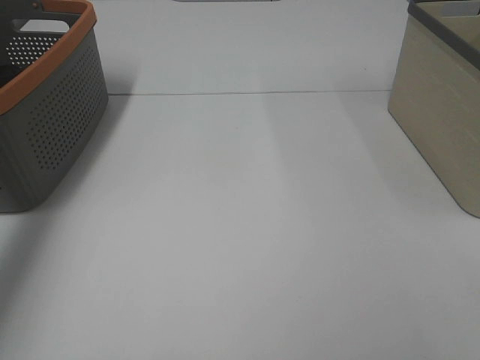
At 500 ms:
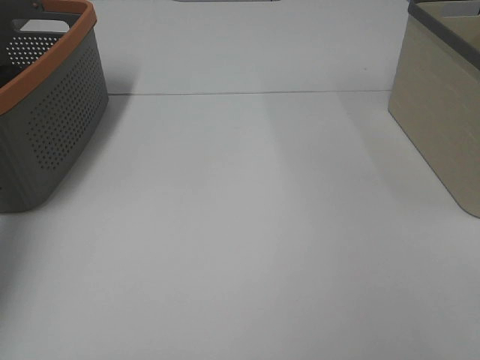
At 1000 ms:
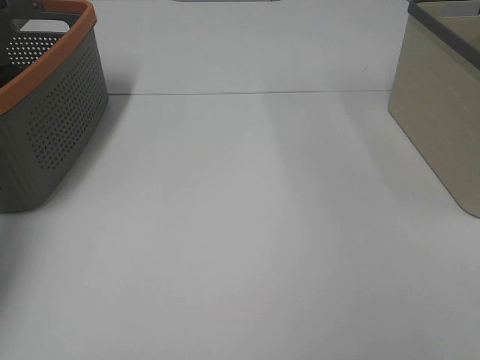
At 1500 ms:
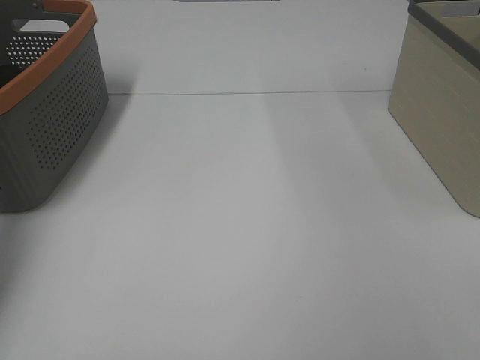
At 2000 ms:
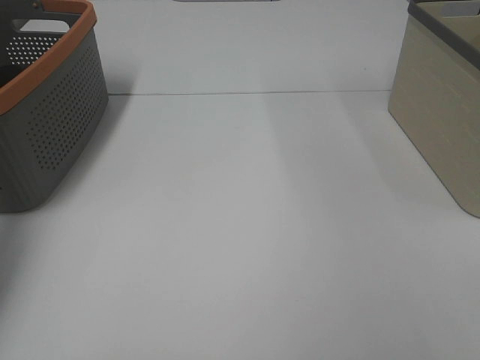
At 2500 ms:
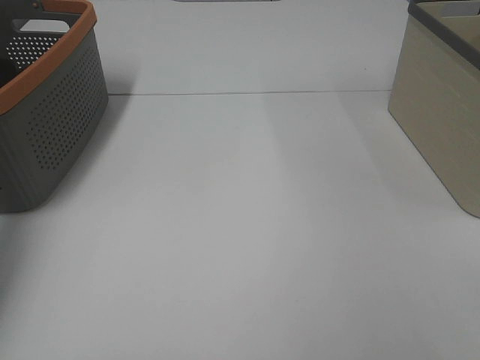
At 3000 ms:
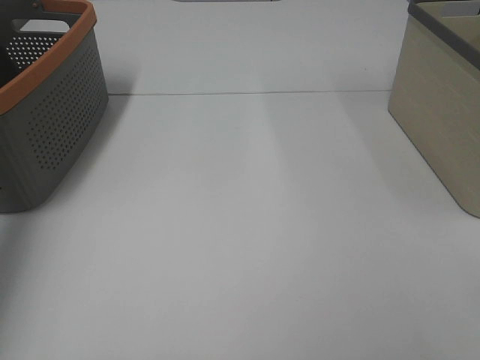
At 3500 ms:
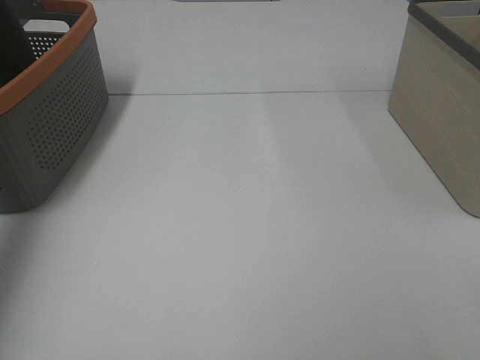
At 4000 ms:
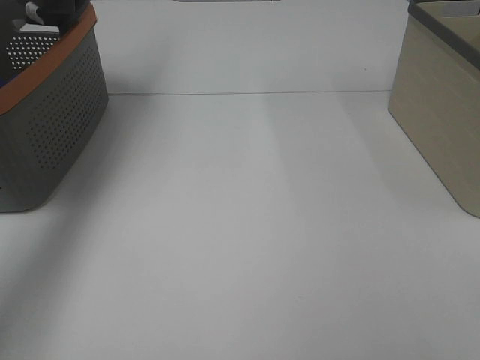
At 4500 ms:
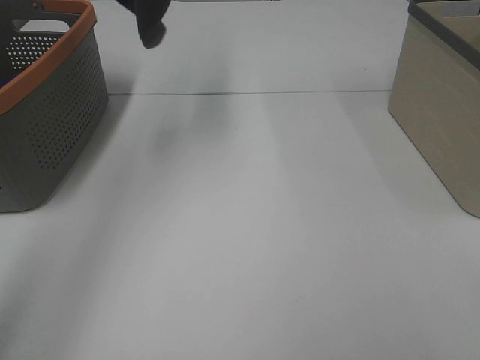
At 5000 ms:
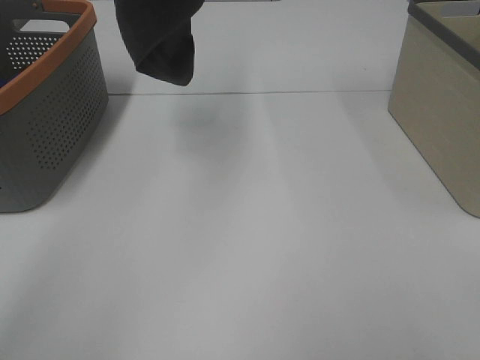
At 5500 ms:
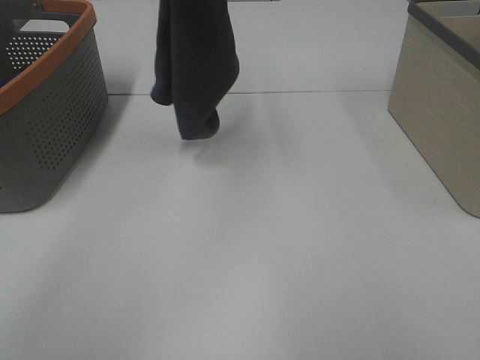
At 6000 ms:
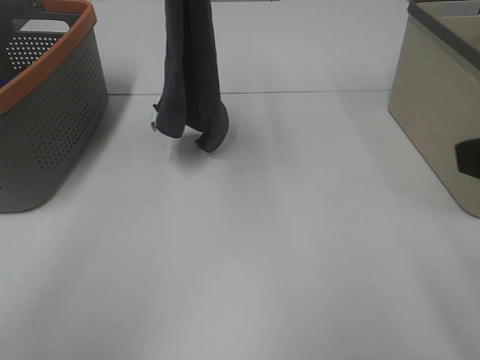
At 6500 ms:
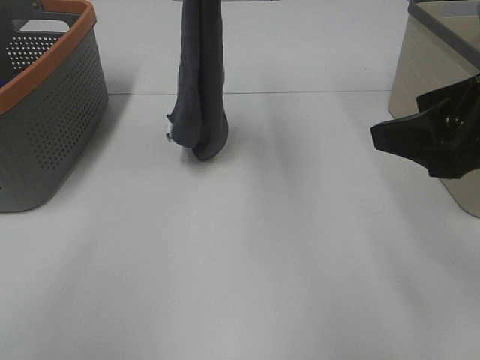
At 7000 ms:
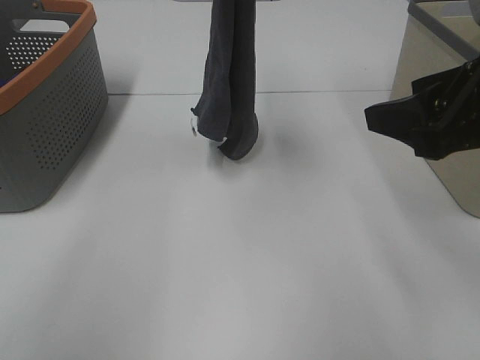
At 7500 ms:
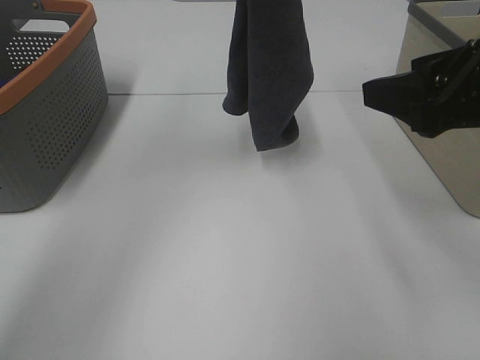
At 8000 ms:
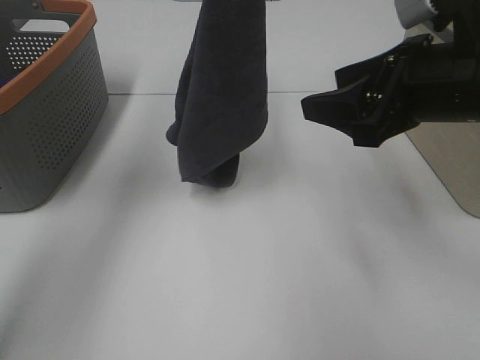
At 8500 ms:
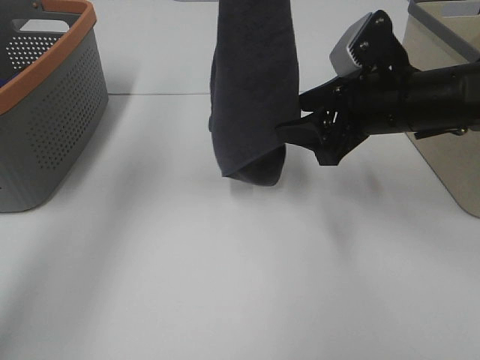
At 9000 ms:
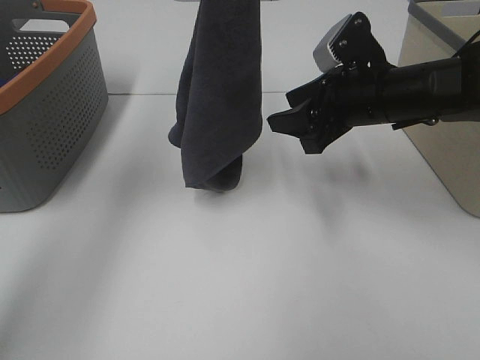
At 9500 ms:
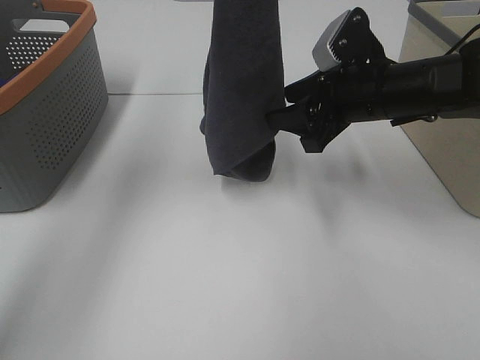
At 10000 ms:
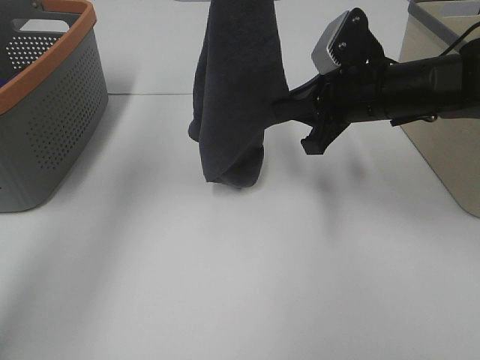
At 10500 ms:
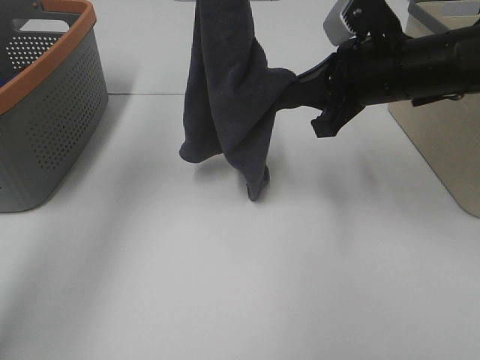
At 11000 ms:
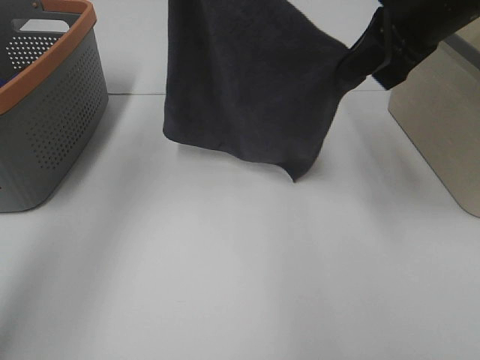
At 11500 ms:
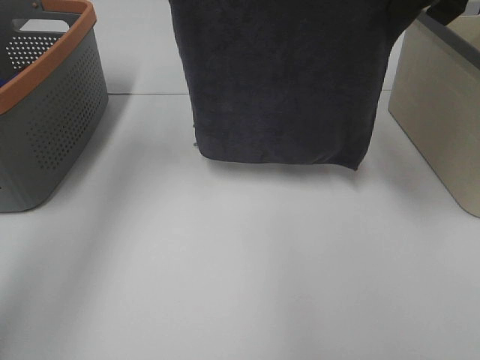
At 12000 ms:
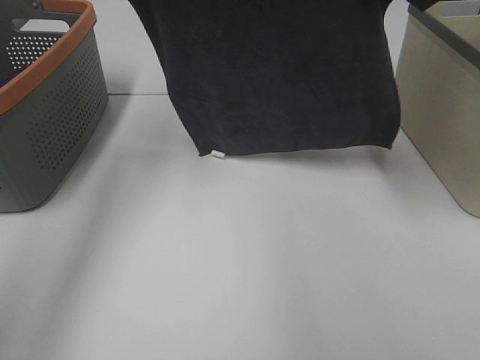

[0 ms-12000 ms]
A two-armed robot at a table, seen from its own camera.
Task of the whole recording: Remove the towel and place it.
Step, 6000 ms to 8000 ms: Right hand: grab a corner of the grey towel and straighten it.
Step, 8500 ms to 10500 ms: Left hand: spread the grey towel flat on the table.
Step, 8500 ms to 10500 ms: Right hand: spread the grey towel flat on the table.
0 ms to 2000 ms: The left gripper heads downward, covering some 10 cm, and closes up.
2000 ms to 4000 ms: The left gripper shifts some 35 cm upward and to the right.
4000 ms to 6000 ms: The right gripper heads forward, covering approximately 10 cm; the left gripper heads to the right and downward, covering about 20 cm.
6000 ms to 8000 ms: The right gripper shifts about 15 cm forward and downward. The left gripper changes place by roughly 5 cm.
8000 ms to 10000 ms: The right gripper shifts approximately 10 cm forward and downward, and closes.
10000 ms to 12000 ms: The left gripper shifts roughly 10 cm downward and to the left, while the right gripper heads upward, covering some 20 cm.

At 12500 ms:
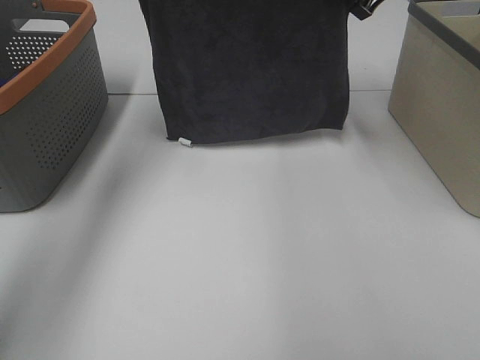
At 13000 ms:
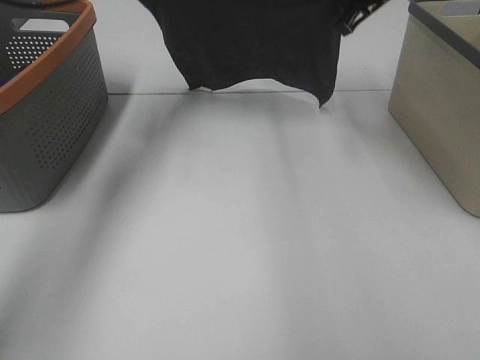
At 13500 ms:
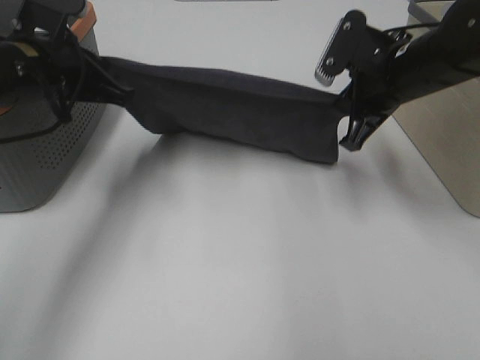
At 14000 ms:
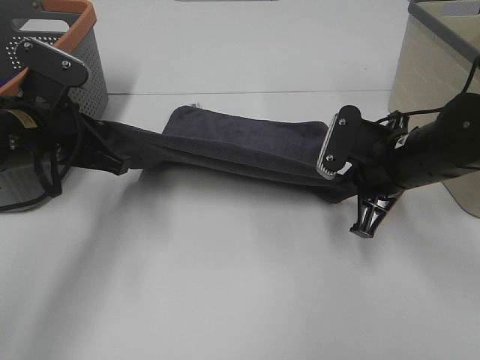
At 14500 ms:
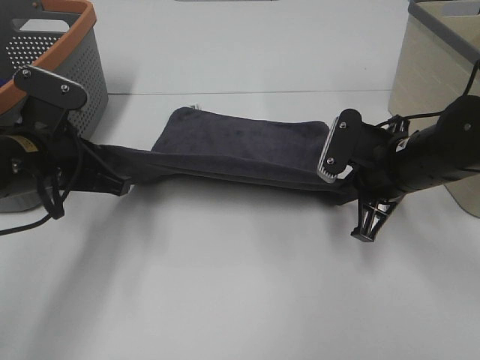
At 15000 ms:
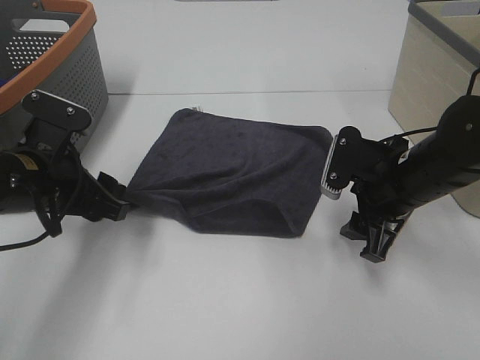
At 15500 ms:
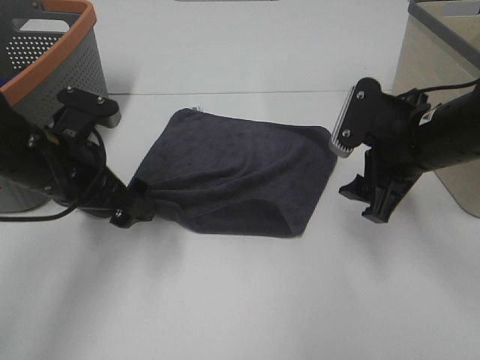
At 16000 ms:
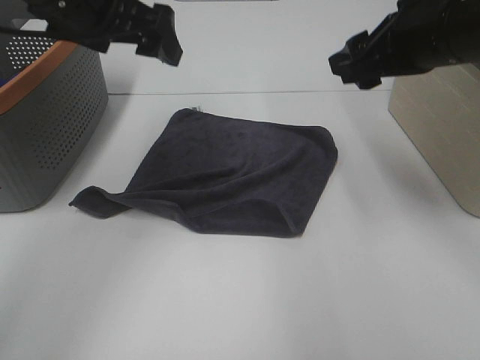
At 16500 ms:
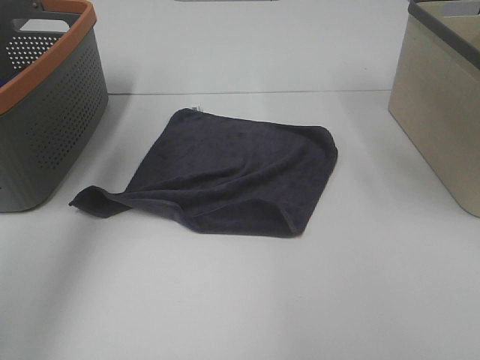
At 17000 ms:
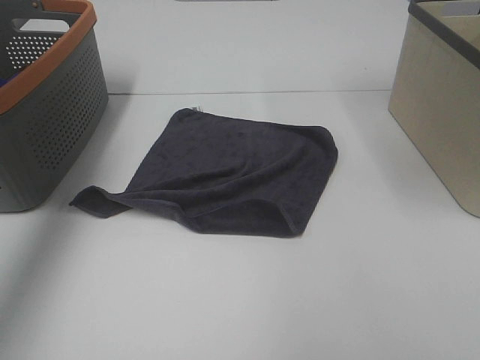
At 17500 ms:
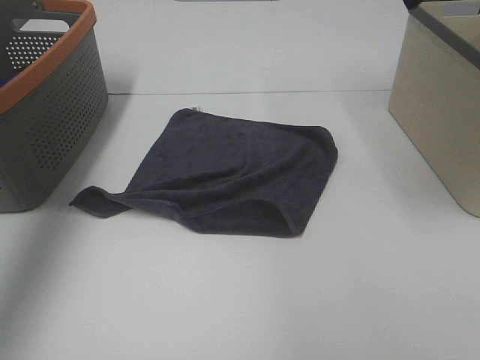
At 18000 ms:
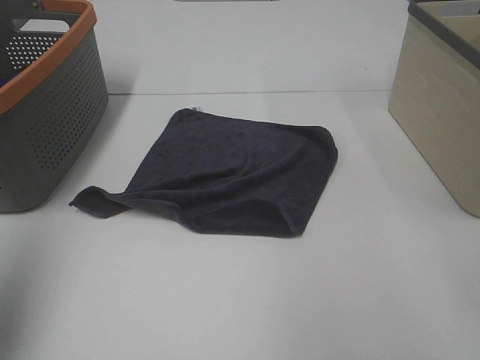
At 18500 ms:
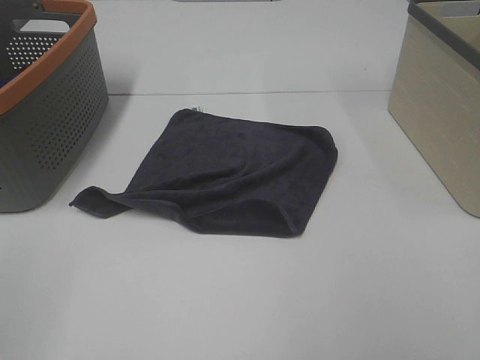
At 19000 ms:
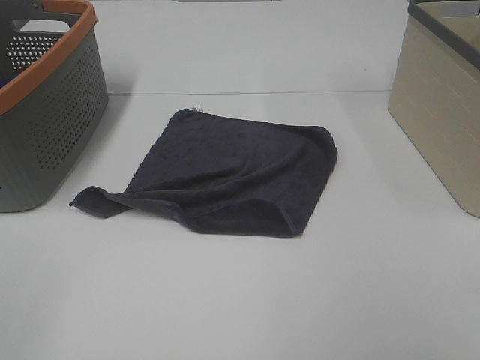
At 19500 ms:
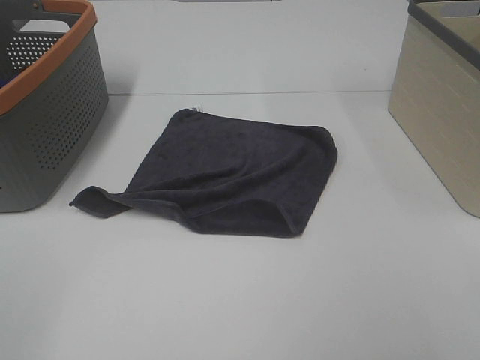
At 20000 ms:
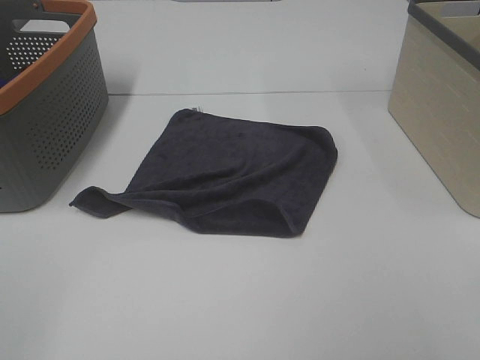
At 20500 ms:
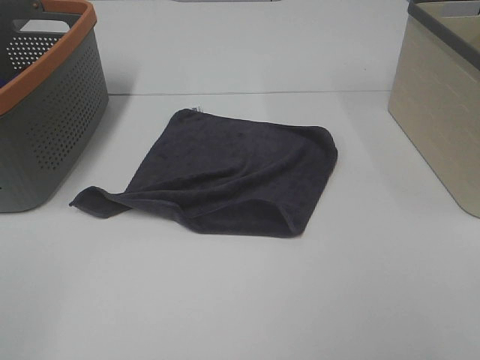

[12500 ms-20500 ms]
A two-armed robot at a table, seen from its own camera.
Task of the whole recording: Remove the towel and place it.
12500 ms to 14500 ms: The left gripper heads backward and downward, covering about 25 cm. Meanwhile the right gripper moves downward and backward, roughly 25 cm.
14500 ms to 16500 ms: Both grippers travel together upward, roughly 25 cm. The right gripper opens its fingers. The left gripper opens its fingers.
16500 ms to 18500 ms: The left gripper moves backward, approximately 35 cm, while the right gripper goes some 25 cm backward and downward.

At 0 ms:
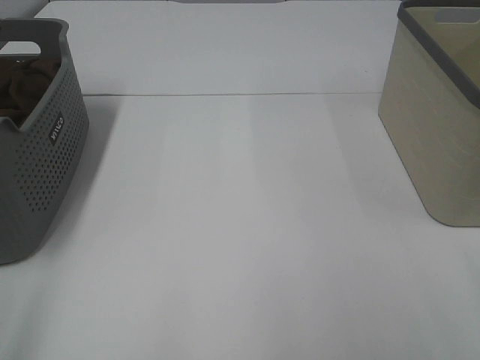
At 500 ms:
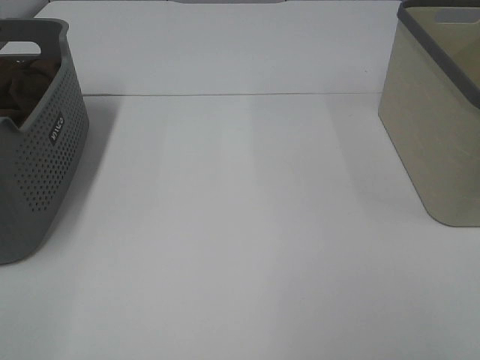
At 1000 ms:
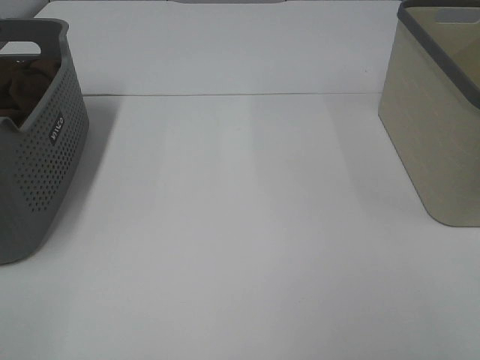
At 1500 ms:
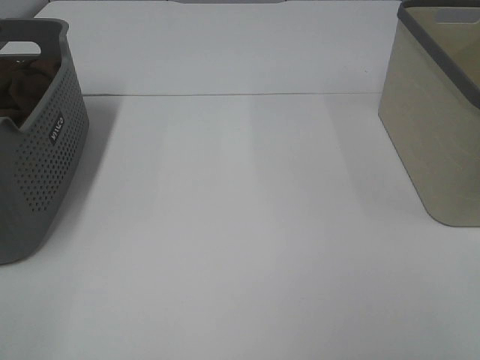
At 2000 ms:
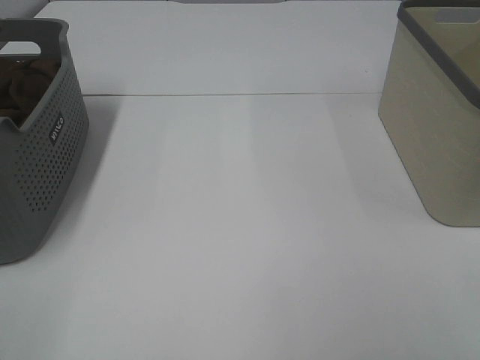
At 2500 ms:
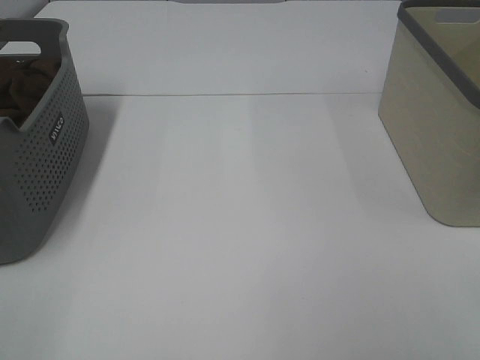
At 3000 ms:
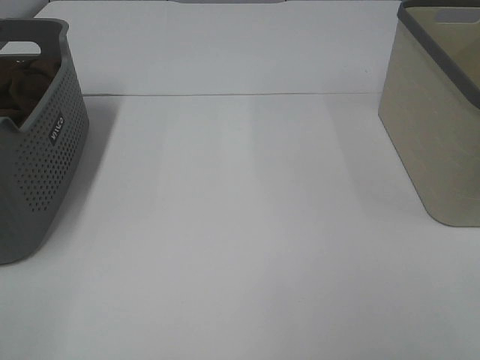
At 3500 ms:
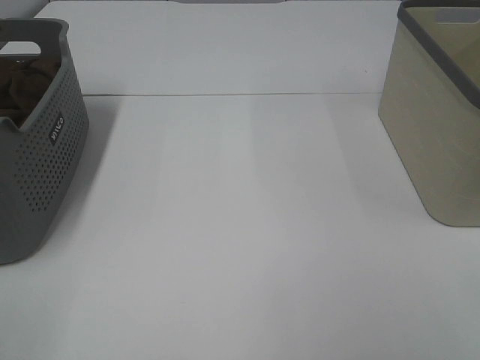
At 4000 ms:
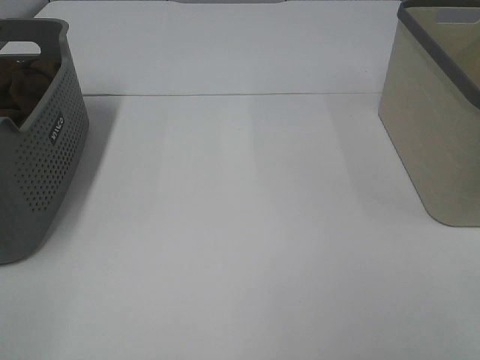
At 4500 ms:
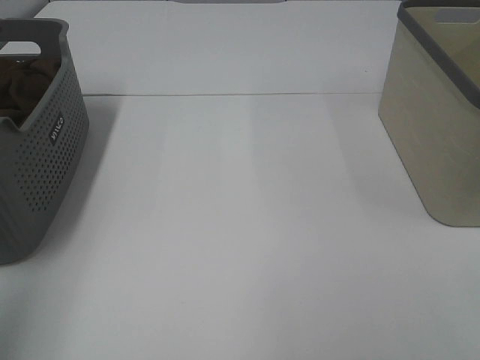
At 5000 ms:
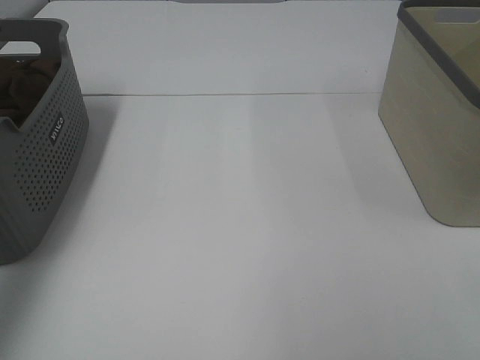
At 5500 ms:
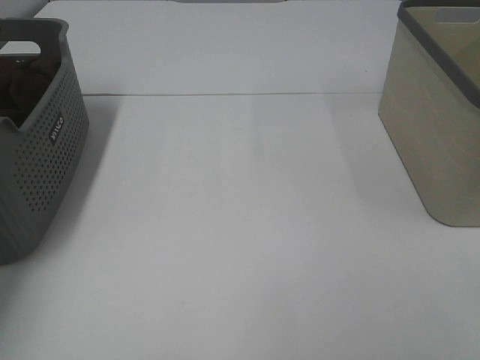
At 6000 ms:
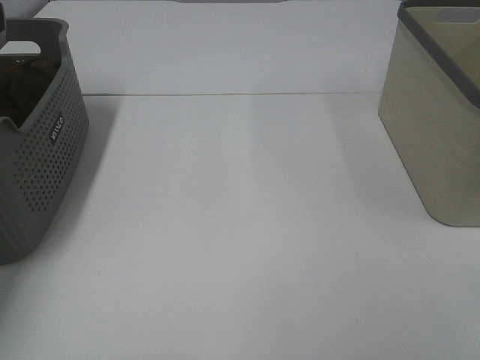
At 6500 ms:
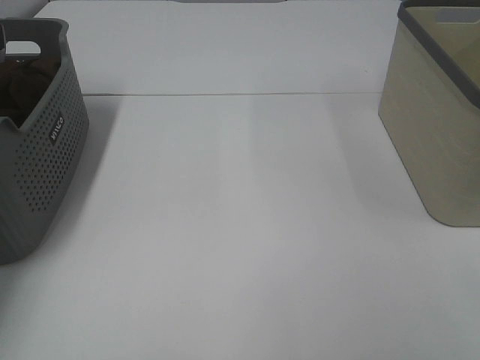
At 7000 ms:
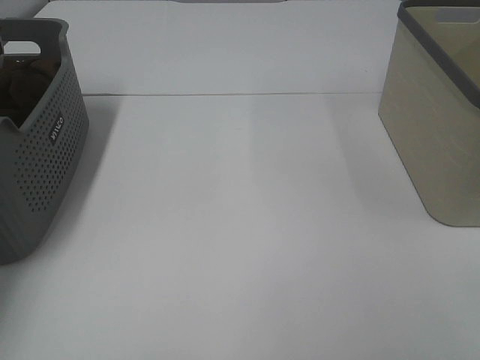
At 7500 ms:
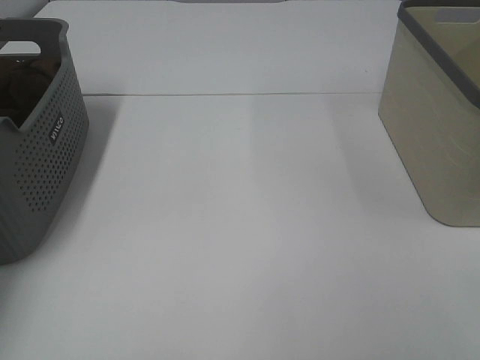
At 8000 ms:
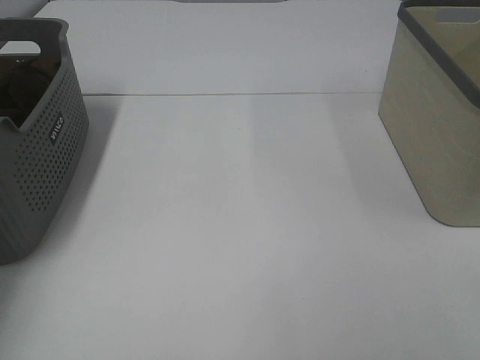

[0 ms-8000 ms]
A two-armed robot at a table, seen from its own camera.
Task of the whole recording: Remove the towel and place it.
4000 ms to 6000 ms: The left gripper shifts roughly 40 cm forward.
